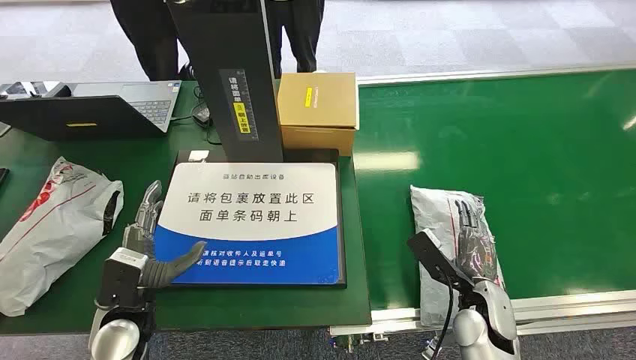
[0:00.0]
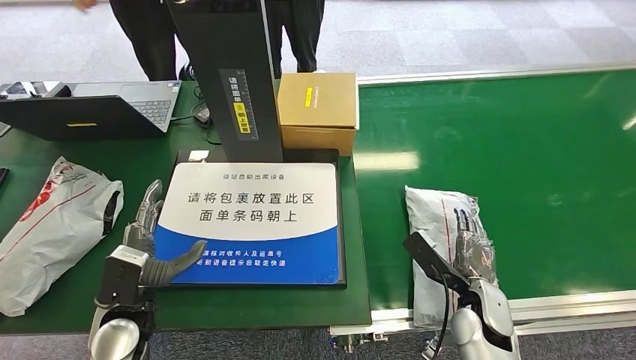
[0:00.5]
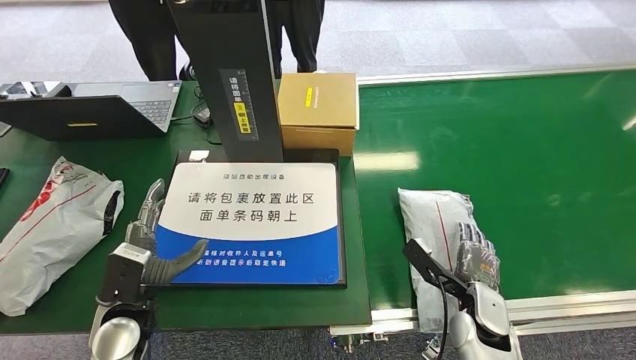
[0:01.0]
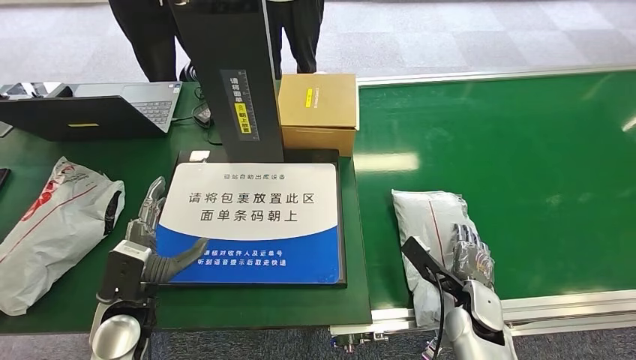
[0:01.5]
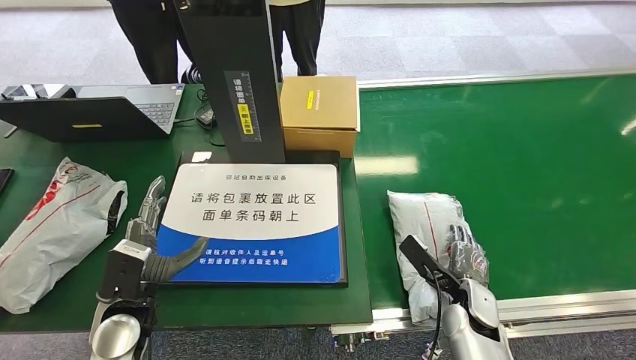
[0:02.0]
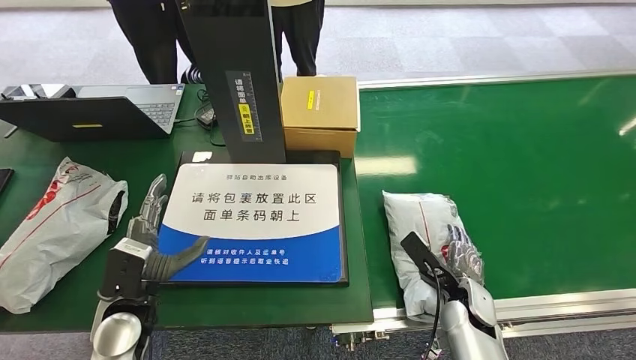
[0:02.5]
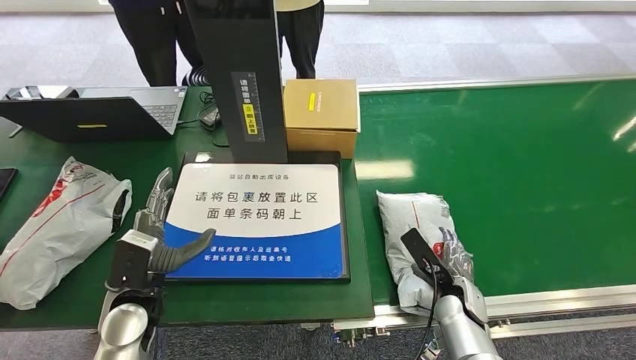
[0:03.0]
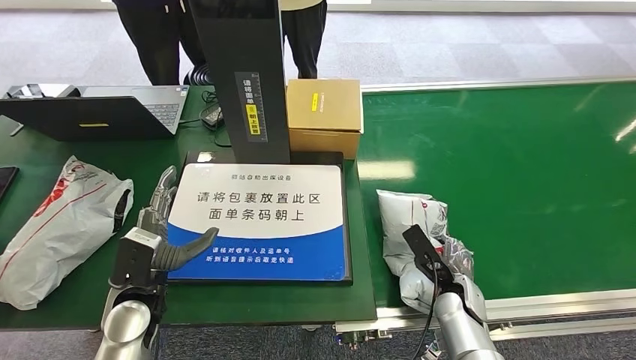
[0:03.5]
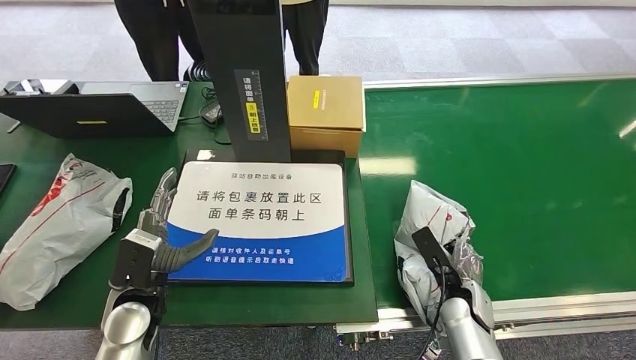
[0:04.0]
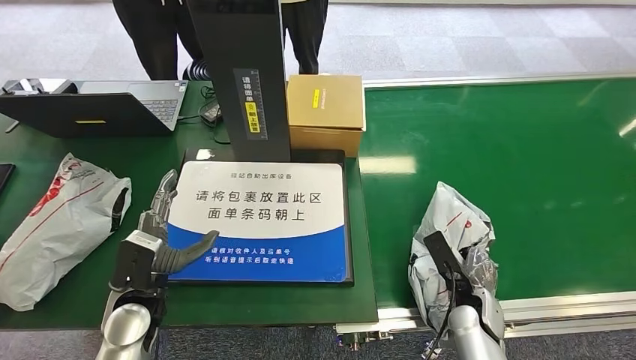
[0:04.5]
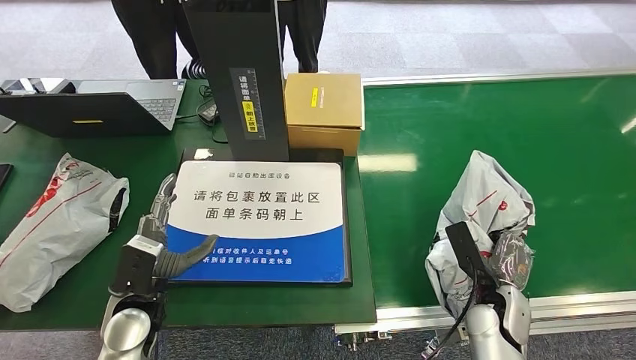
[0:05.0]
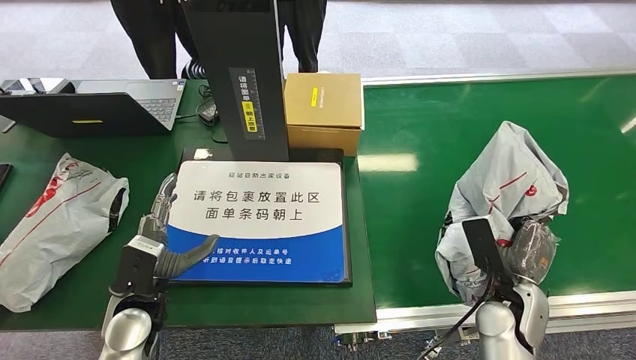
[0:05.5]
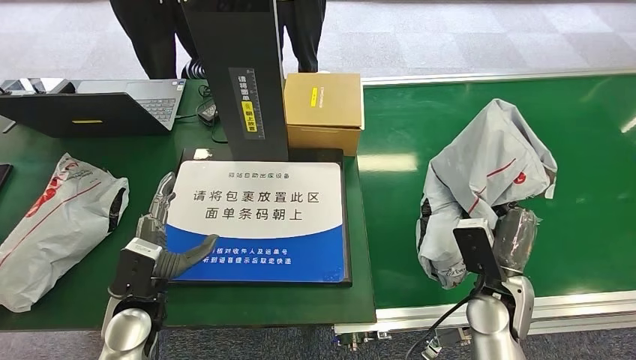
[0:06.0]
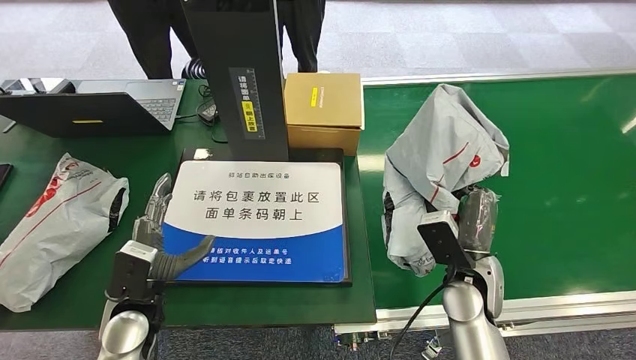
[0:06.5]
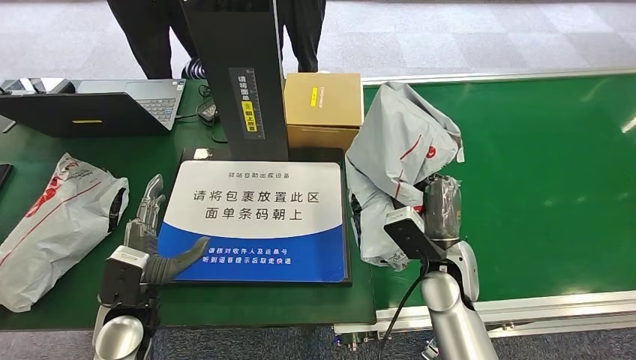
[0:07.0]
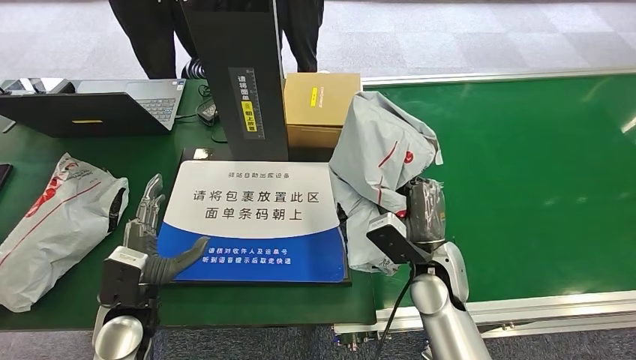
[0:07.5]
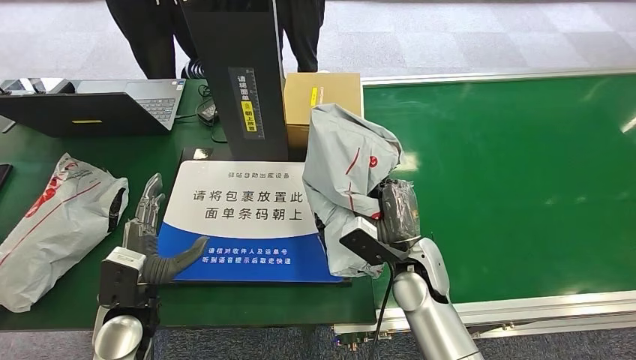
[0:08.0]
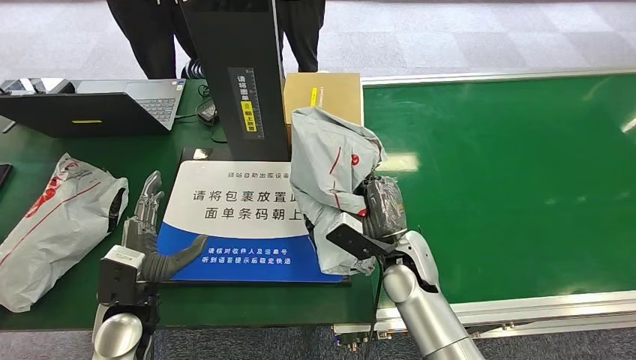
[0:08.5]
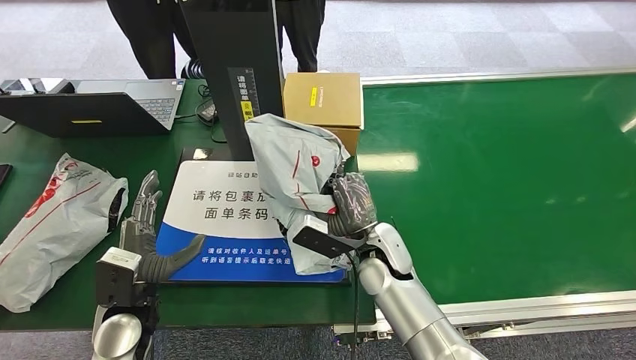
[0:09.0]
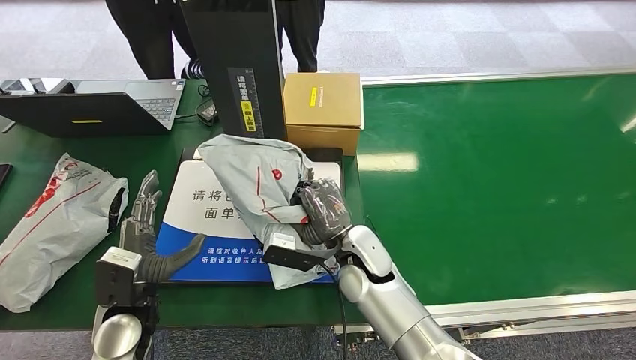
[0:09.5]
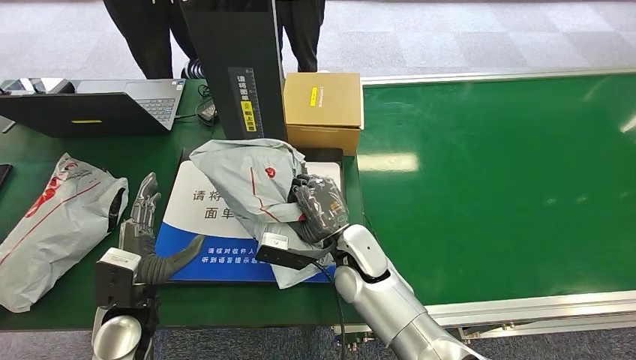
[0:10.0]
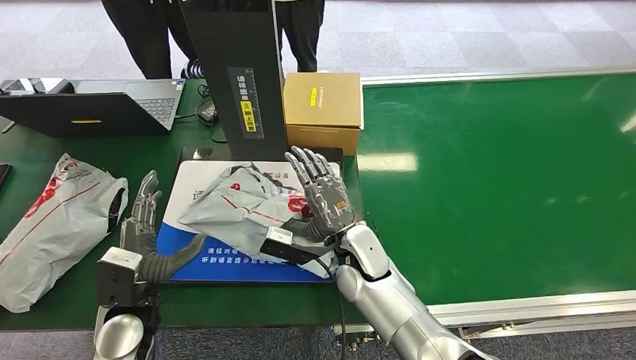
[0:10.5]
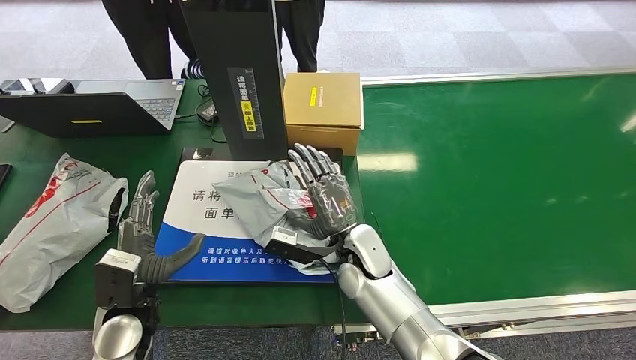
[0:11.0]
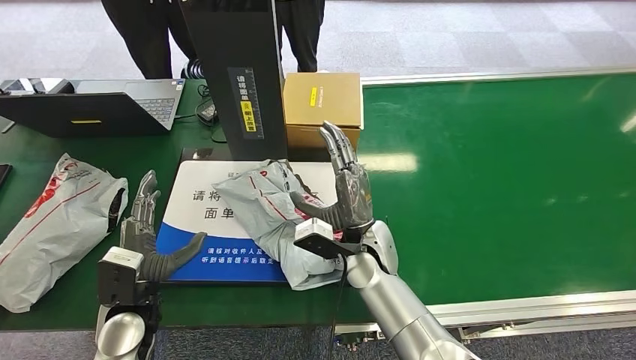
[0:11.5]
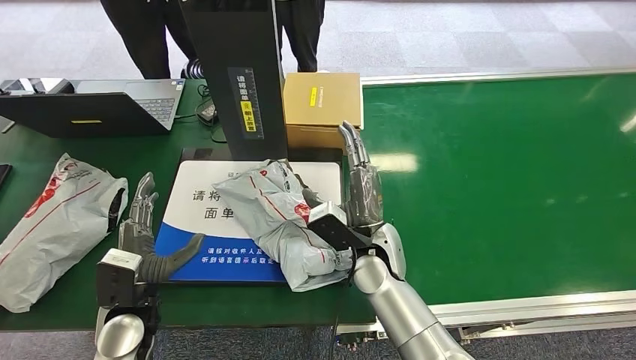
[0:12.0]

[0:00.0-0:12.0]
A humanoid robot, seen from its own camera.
Step, 0:00.0 to 0:06.0: Pick up the package from the conveyor belt.
0:02.0 to 0:04.0: There are only small adjustments of the hands.
0:08.0 to 0:10.0: The right hand travels to the left by about 10 cm.

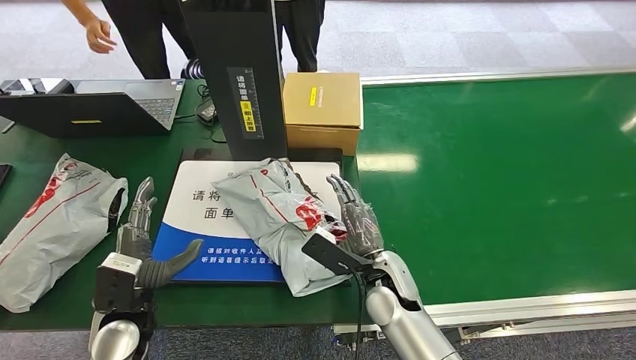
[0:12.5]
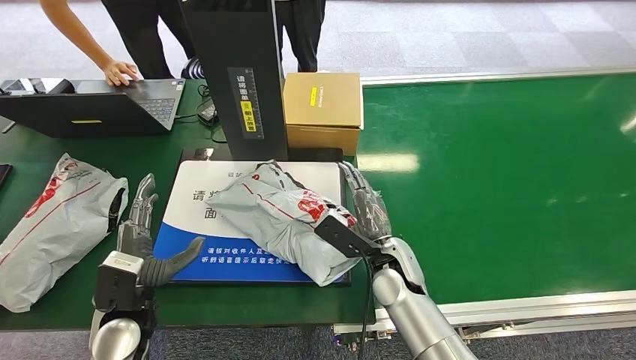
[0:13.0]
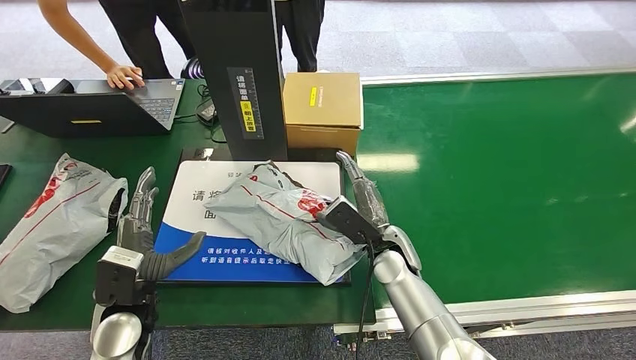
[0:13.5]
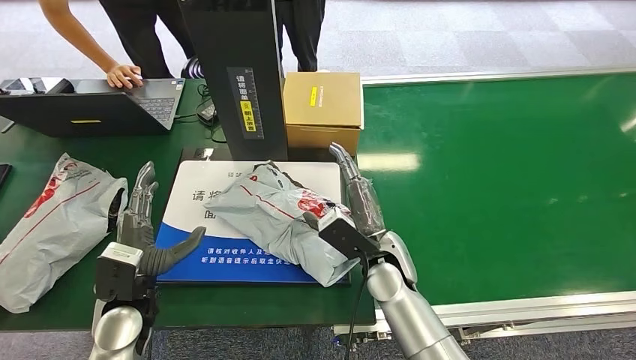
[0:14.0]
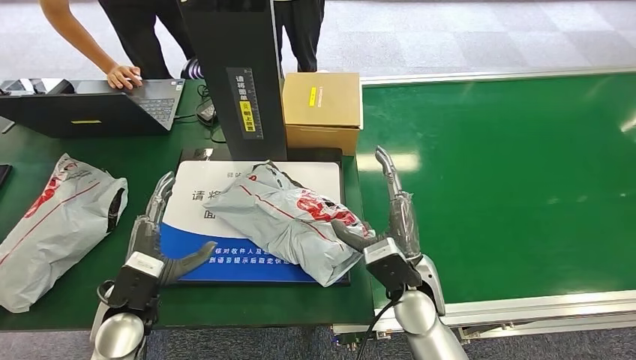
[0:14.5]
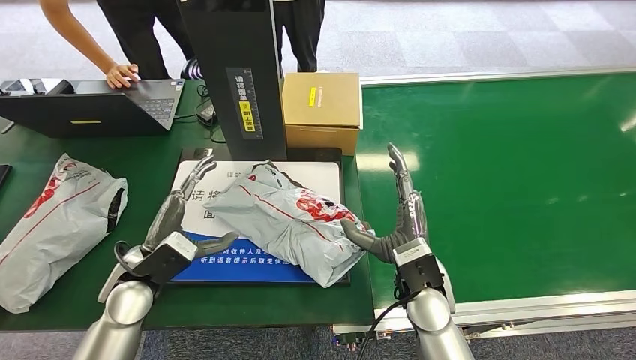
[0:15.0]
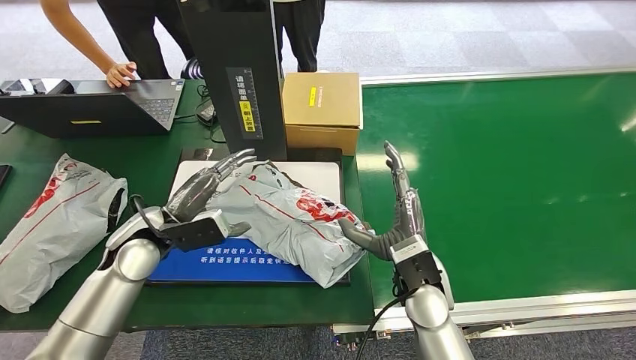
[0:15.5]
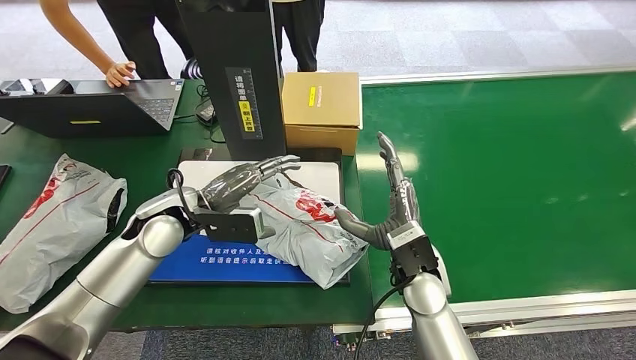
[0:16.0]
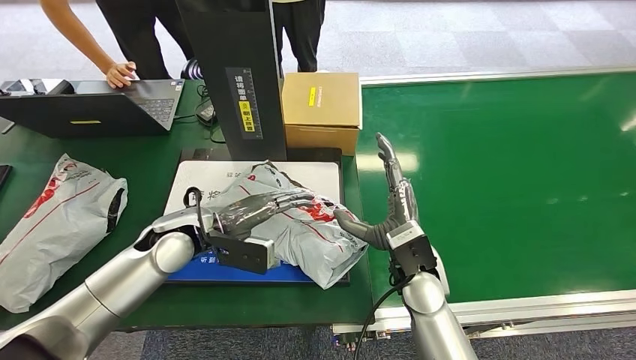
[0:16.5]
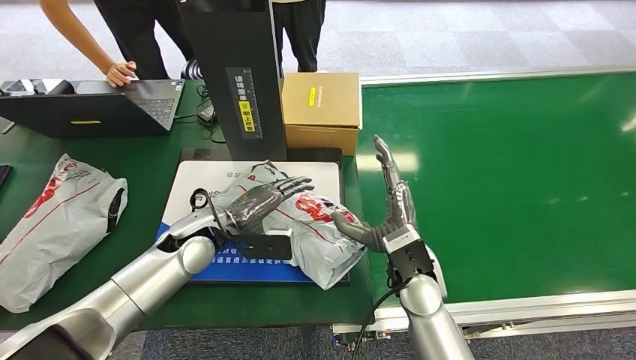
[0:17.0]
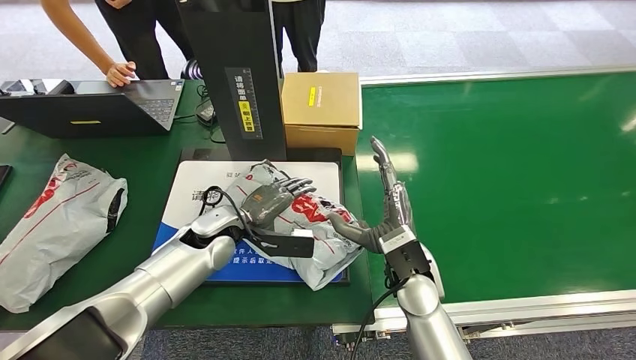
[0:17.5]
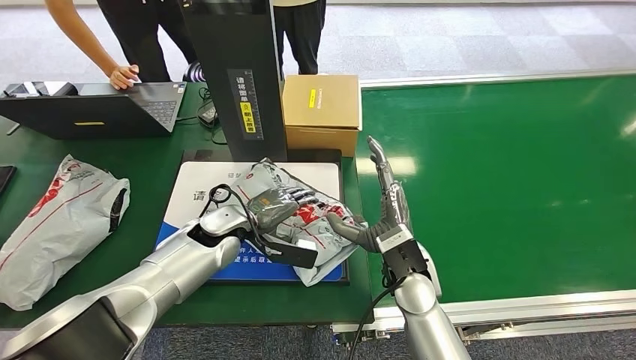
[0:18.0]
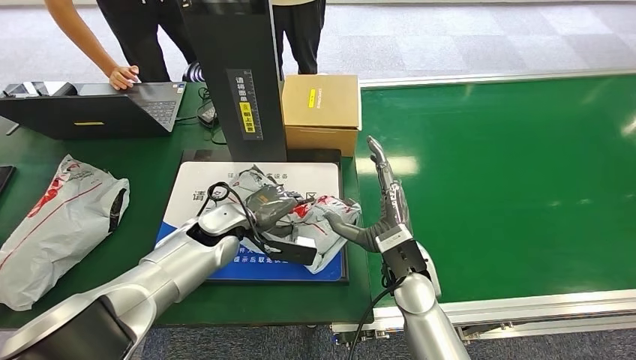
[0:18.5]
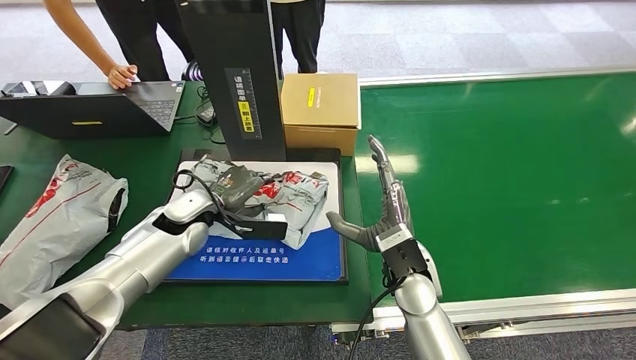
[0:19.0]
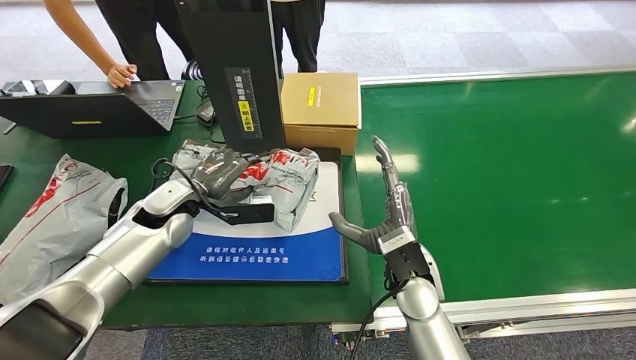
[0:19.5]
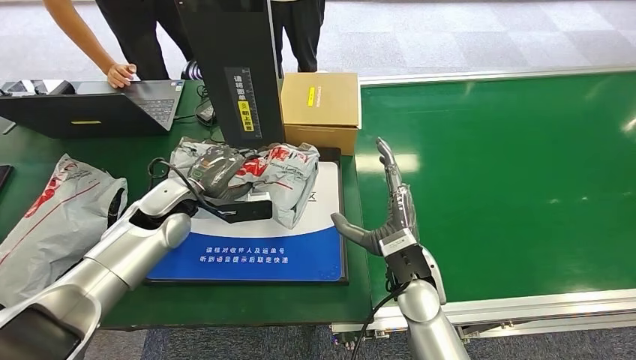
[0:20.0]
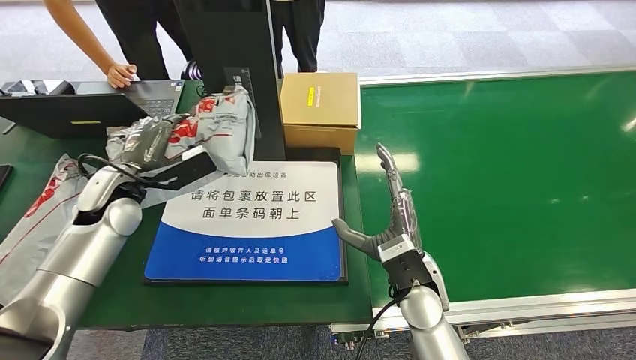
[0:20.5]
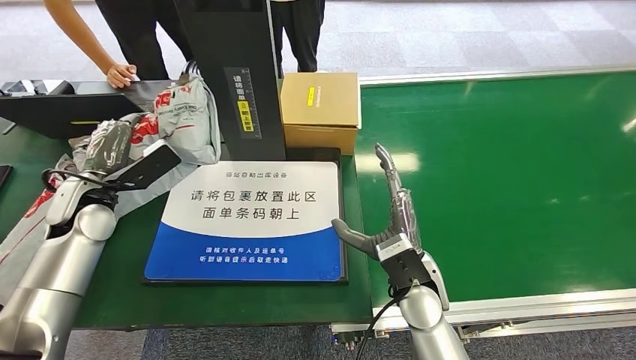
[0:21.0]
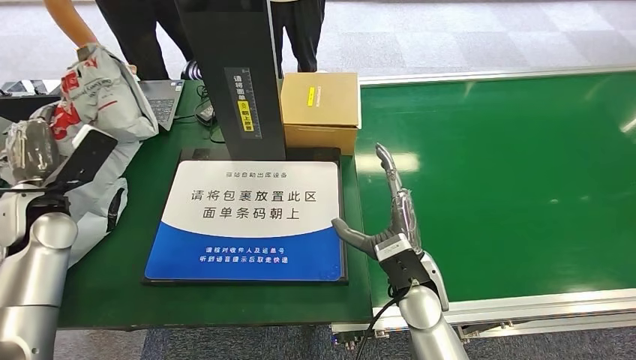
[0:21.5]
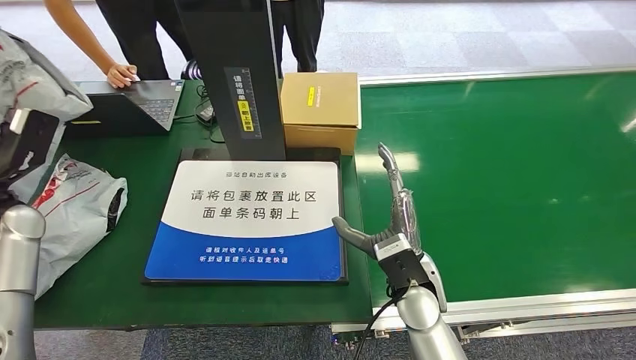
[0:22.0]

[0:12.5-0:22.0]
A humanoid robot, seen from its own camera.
Step, 0:12.5 to 0:15.5: Place the package onto the inbound machine.
Step, 0:16.0 to 0:21.0: Pick up the package from the inbound machine.
0:12.5 to 0:14.5: The right hand travels forward and back again, roughly 5 cm each way.
0:14.5 to 0:16.5: The left hand is displaced forward, to the right and upward by about 15 cm.
0:20.0 to 0:22.0: The left hand moves to the left, approximately 25 cm.
